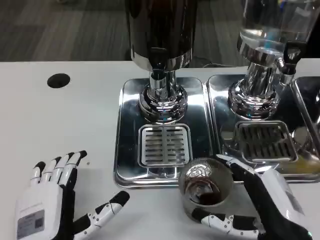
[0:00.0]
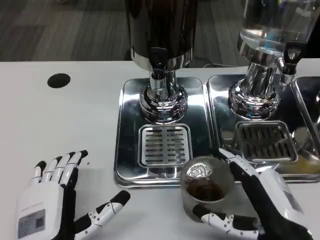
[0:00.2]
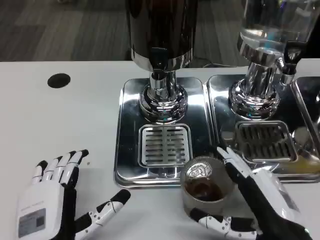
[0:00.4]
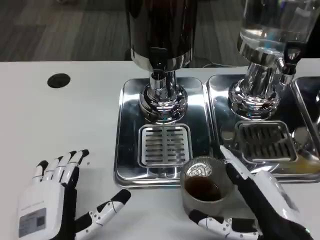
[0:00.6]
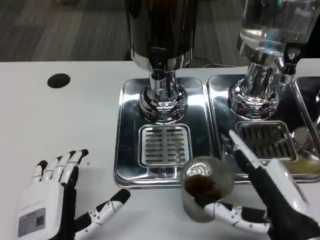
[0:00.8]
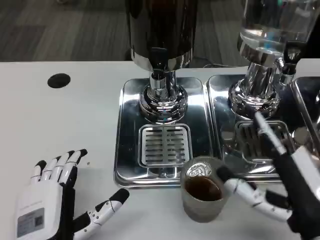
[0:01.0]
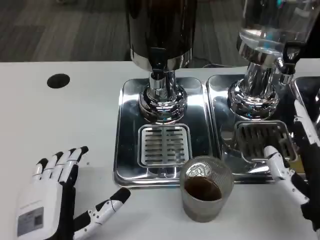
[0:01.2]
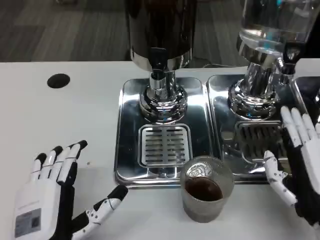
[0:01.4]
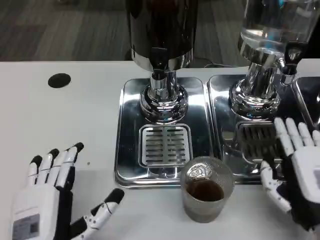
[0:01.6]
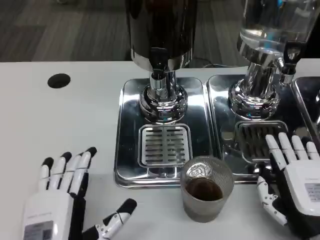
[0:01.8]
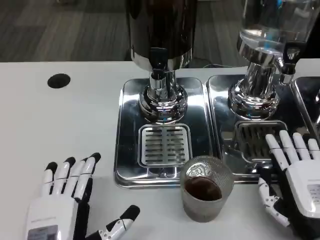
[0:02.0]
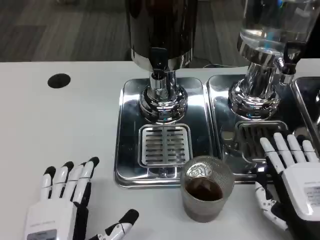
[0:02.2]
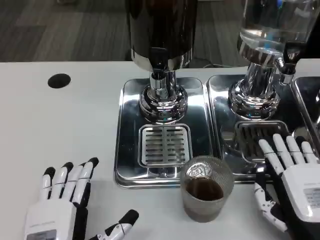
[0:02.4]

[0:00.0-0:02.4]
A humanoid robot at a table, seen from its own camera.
Task of the whole recording: Grasp the cup under the faucet to collect the drink, then remove the cup.
0:00.0 to 0:01.2: There are only small adjustments of the hands.
0:01.2 to 0:02.4: The right hand goes some 5 cm downward.

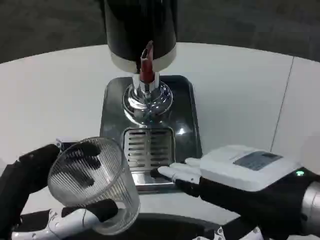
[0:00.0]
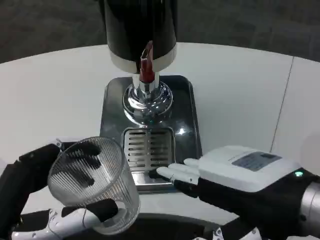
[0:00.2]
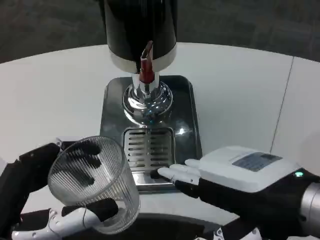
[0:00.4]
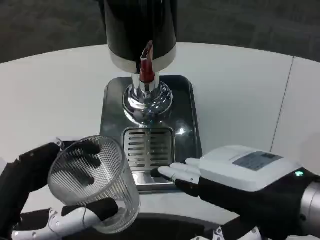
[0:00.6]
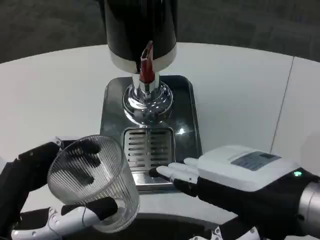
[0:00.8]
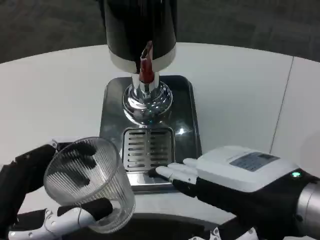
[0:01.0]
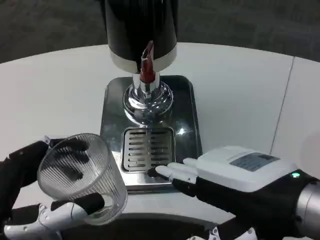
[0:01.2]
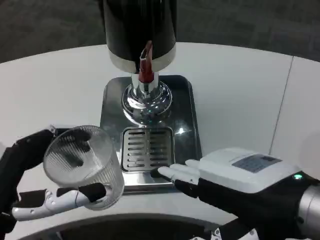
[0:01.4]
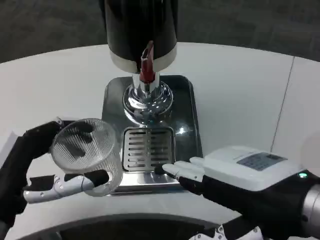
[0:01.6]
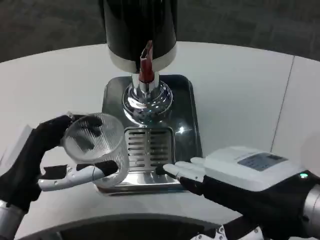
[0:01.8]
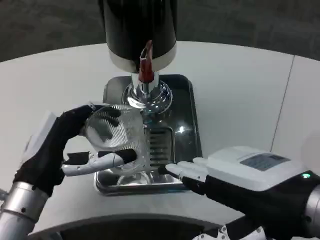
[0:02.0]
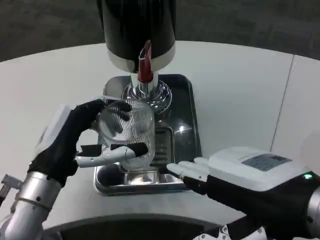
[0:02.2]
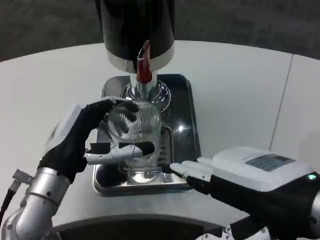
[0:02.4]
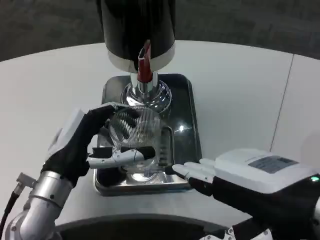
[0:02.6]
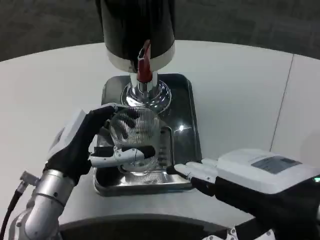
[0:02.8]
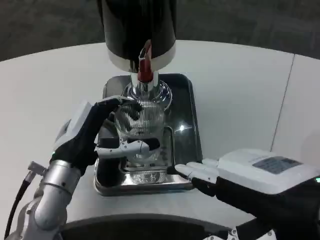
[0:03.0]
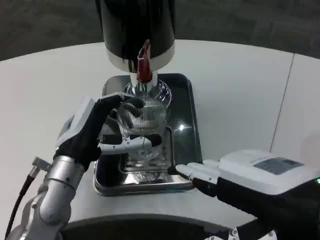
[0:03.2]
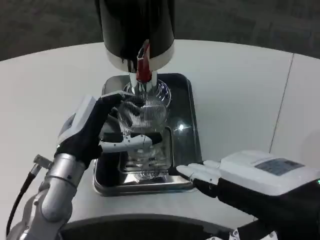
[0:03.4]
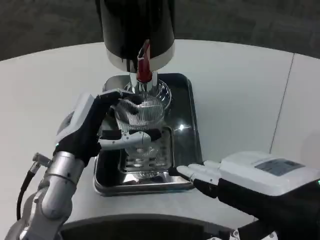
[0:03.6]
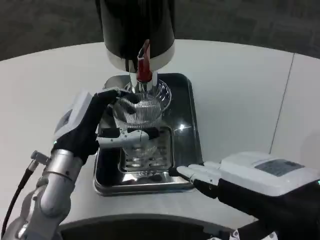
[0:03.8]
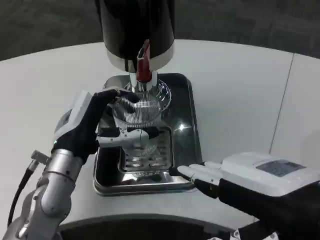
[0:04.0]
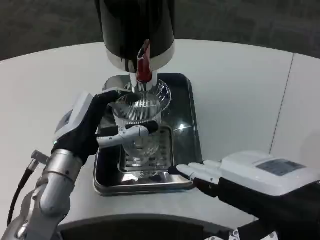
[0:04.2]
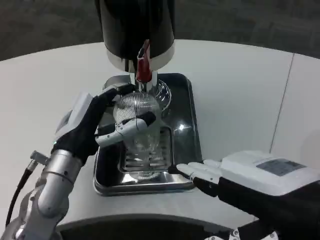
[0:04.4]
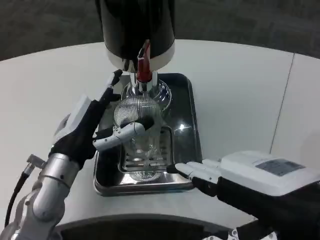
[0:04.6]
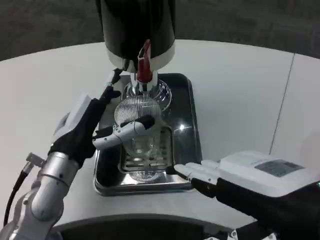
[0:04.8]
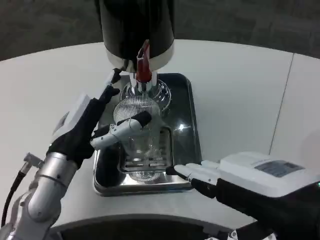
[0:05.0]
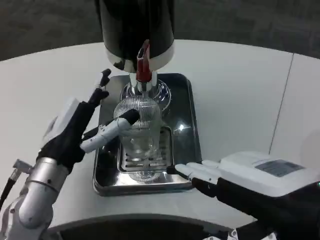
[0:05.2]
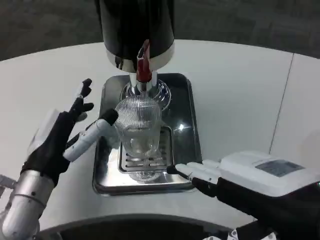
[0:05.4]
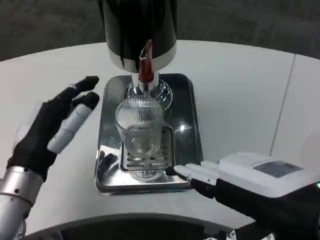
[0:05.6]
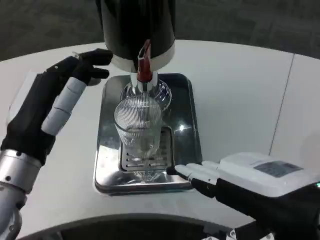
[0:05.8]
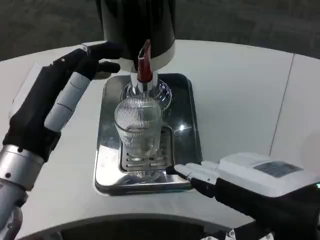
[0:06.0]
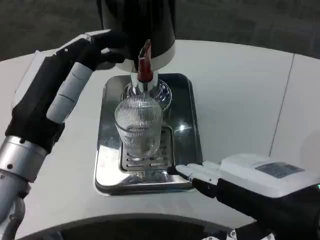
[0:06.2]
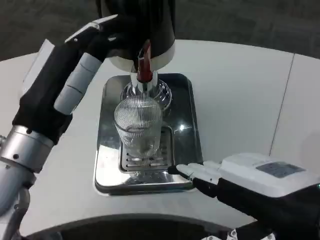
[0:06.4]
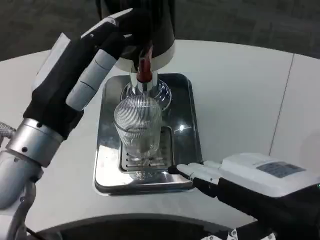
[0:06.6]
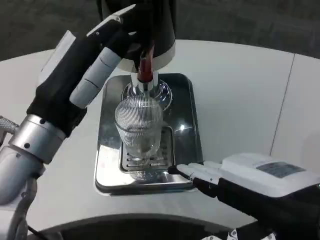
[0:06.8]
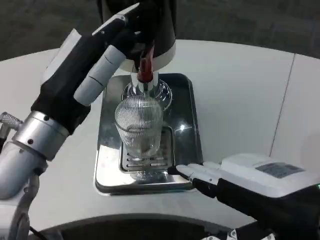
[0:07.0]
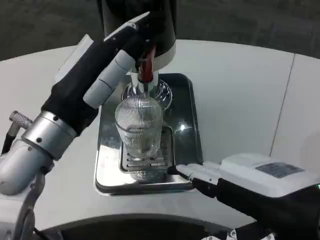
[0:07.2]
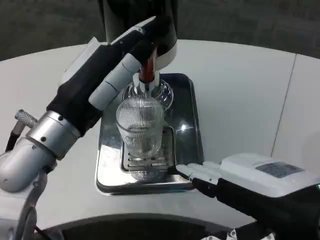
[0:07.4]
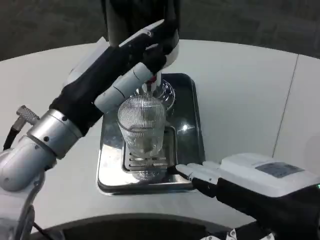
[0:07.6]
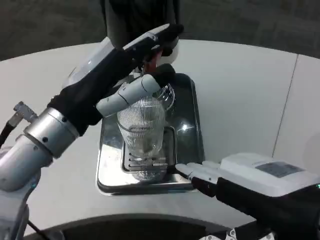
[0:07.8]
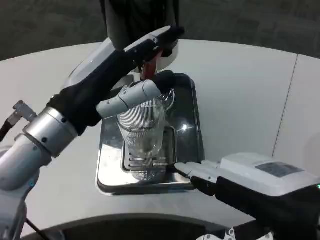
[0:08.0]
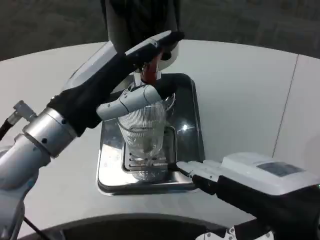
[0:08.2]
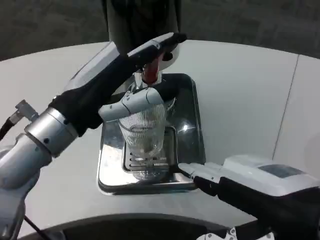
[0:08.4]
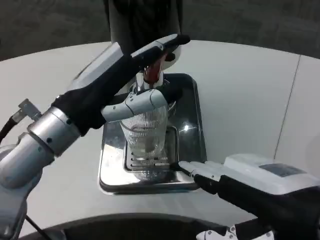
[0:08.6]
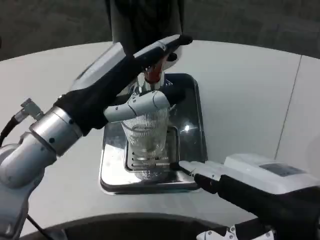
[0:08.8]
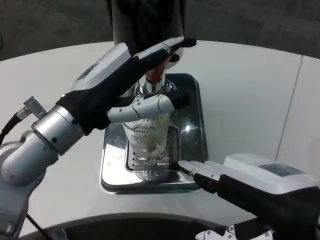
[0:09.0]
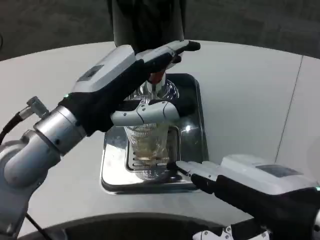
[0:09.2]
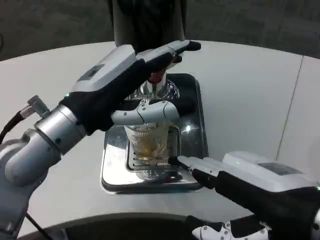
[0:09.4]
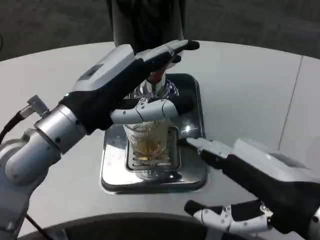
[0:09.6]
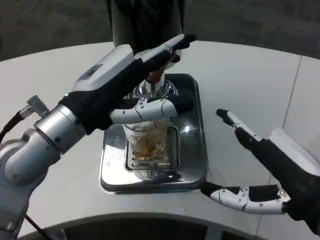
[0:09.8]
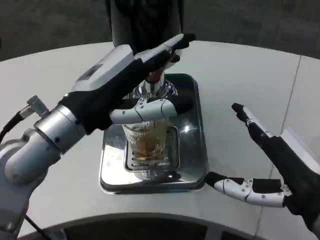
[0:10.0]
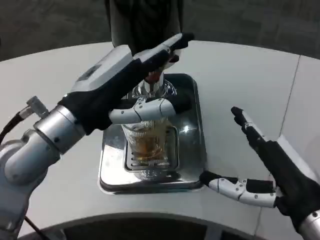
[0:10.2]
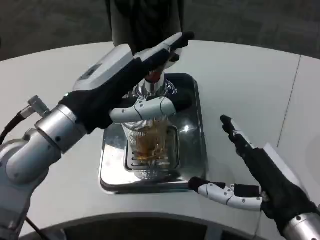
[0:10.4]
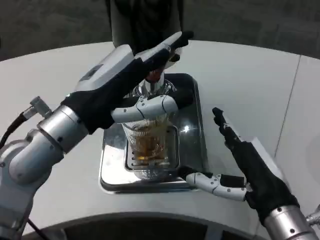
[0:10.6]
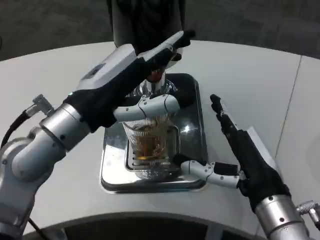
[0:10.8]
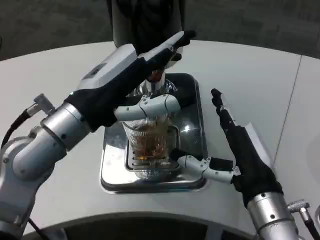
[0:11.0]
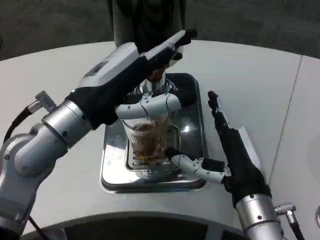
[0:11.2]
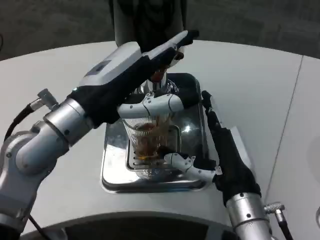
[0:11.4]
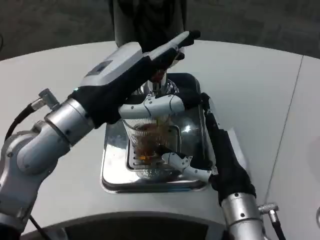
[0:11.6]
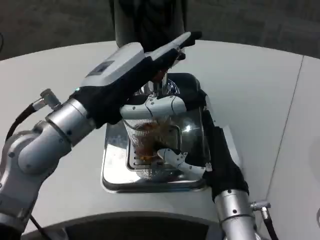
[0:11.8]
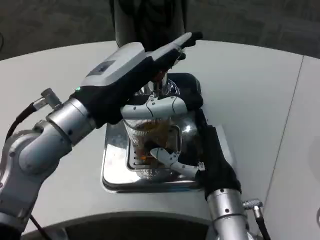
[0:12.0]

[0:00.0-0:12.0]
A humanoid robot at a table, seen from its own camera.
Task of the whole recording: Grasp the cup under the faucet to collect the drink, then remove the cup.
0:00.0 to 0:01.6: The left hand shifts approximately 10 cm forward.
0:01.6 to 0:03.0: The left hand is displaced forward and to the right by roughly 10 cm.
0:03.0 to 0:04.4: The hands make only small movements.
0:04.4 to 0:06.0: The left hand shifts some 10 cm backward and upward.
0:06.0 to 0:07.6: The left hand moves about 5 cm.
0:09.0 to 0:10.4: The right hand goes about 10 cm downward and forward.
0:10.4 to 0:12.0: The right hand moves to the left and forward, roughly 10 cm.

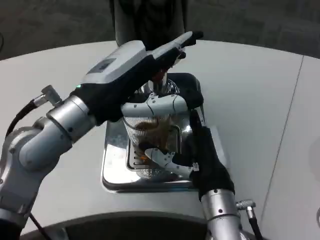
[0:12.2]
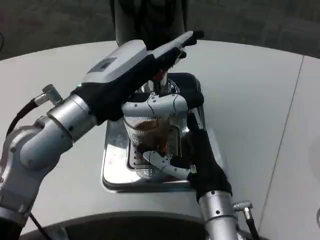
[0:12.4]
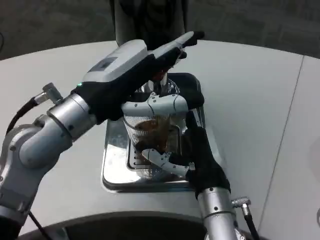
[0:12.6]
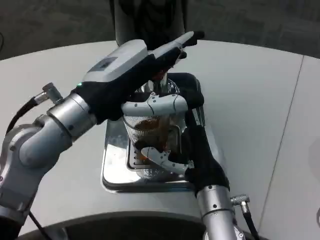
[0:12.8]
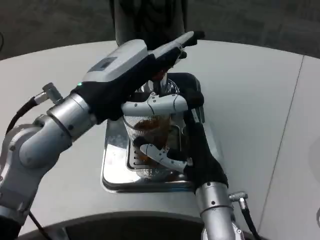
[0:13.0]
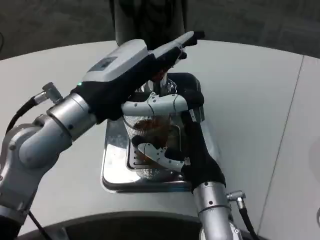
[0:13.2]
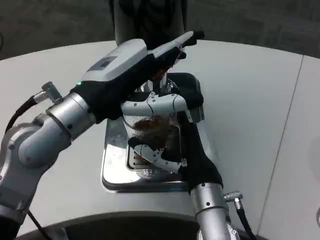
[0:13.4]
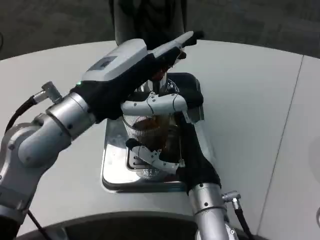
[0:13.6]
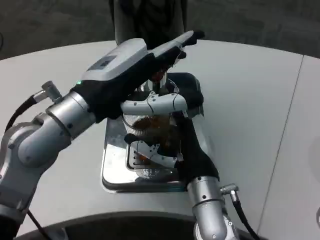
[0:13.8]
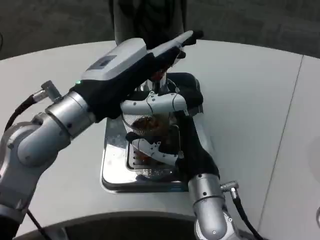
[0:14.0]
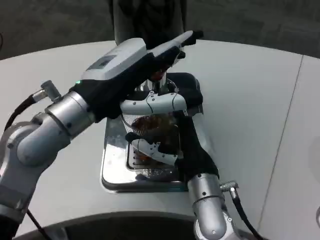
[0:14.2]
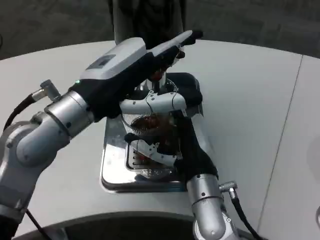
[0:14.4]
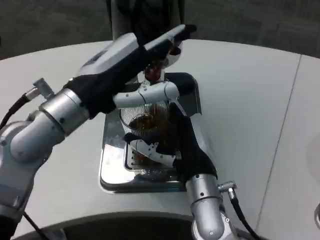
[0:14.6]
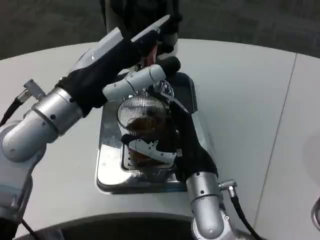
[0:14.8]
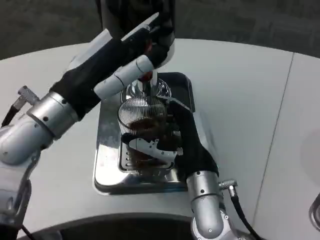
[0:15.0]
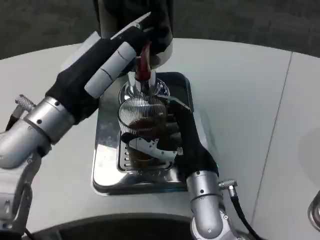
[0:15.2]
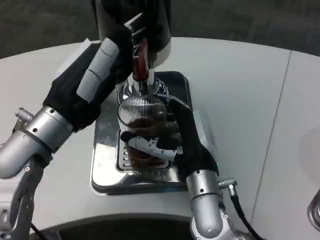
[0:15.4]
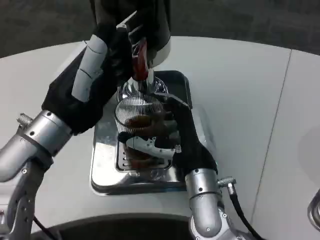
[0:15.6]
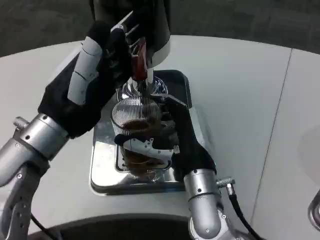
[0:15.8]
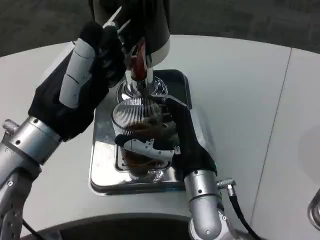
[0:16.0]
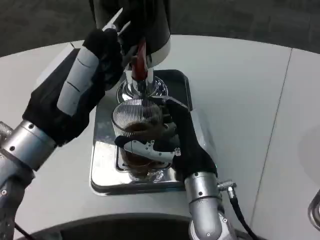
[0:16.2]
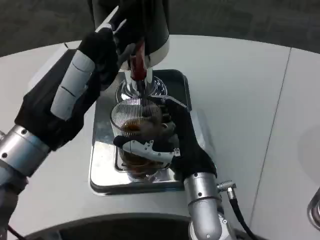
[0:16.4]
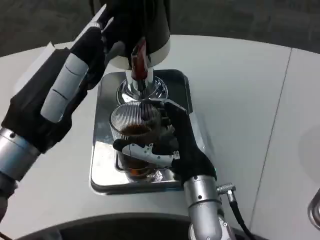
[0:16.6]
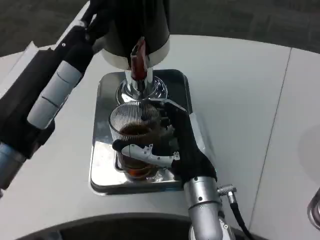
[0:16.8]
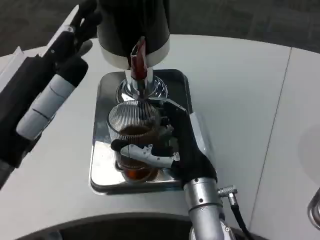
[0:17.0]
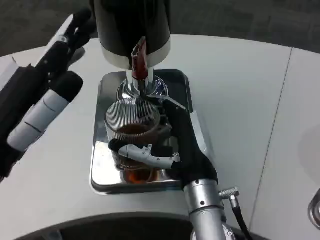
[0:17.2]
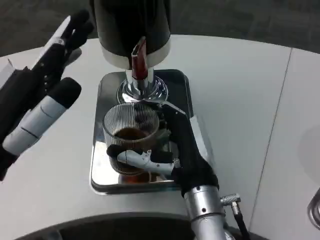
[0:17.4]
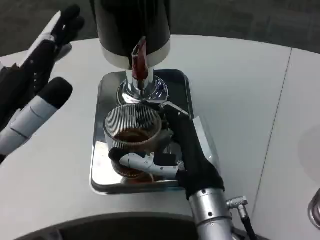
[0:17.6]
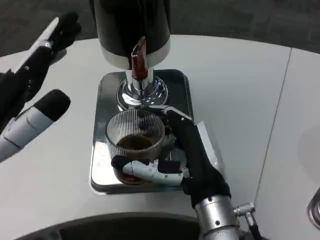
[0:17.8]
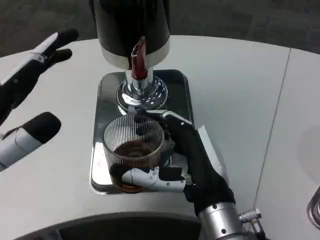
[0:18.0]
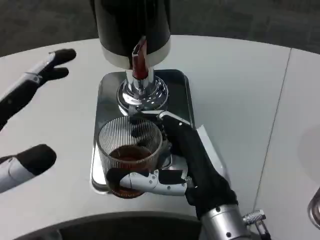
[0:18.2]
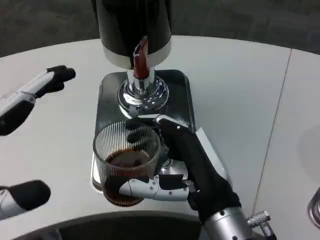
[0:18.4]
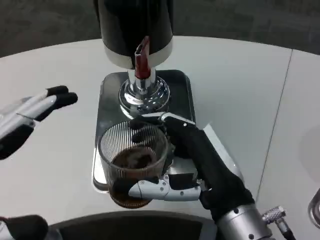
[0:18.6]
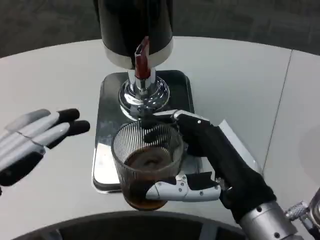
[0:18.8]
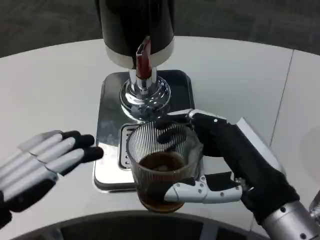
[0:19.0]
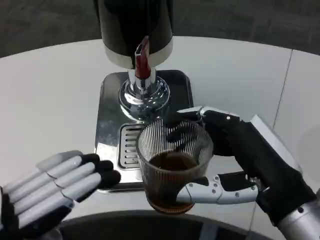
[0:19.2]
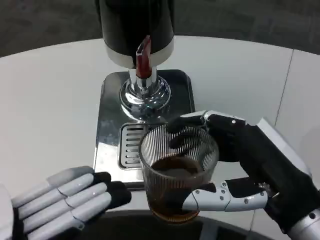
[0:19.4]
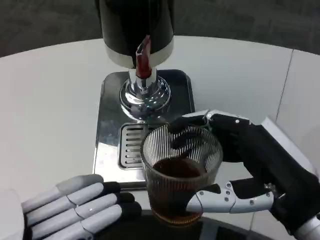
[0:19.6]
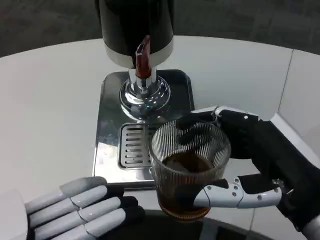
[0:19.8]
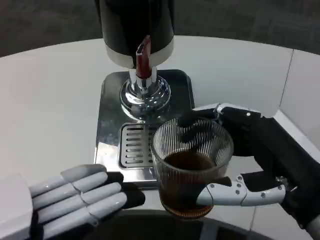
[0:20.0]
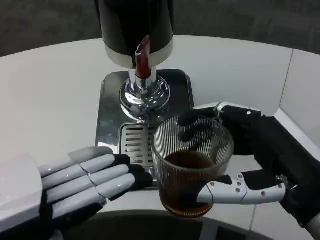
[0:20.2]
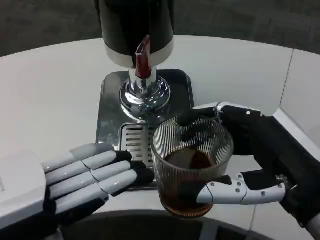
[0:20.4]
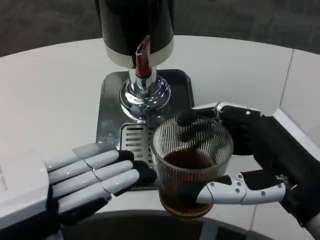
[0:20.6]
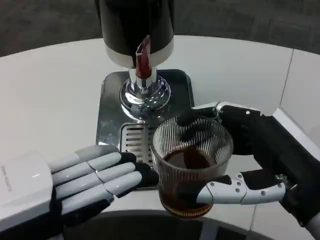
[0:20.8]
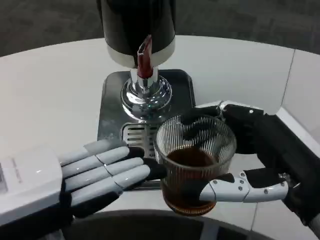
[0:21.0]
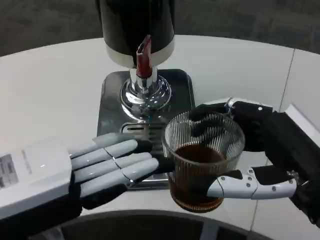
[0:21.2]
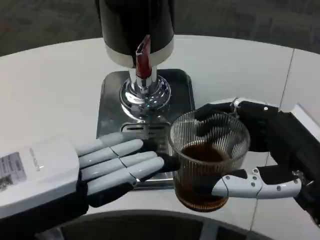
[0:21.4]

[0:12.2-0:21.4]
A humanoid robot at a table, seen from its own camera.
Task of the whole recording: Grasp the cup under the faucet to collect the drink, then remove the cup.
0:12.2 to 0:13.8: There are only small adjustments of the hands.
0:15.2 to 0:16.8: The left hand heads backward, covering roughly 10 cm.
0:16.8 to 0:18.4: The right hand is displaced backward by some 10 cm. The left hand moves backward and to the left, about 10 cm.
0:18.4 to 0:19.8: The right hand heads to the right and upward, covering some 10 cm.
0:19.8 to 0:21.4: The left hand travels forward by roughly 5 cm.
